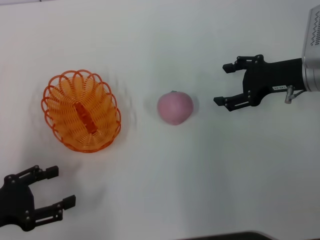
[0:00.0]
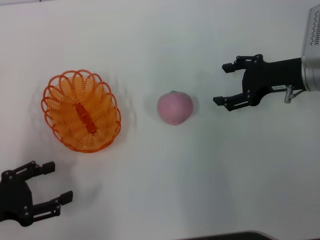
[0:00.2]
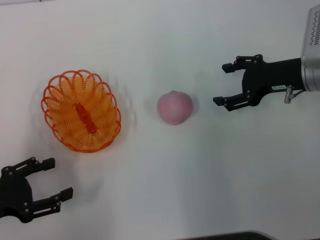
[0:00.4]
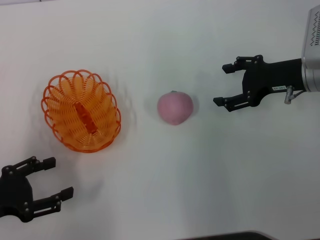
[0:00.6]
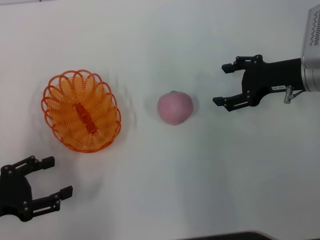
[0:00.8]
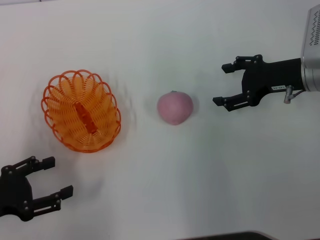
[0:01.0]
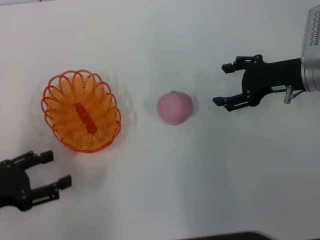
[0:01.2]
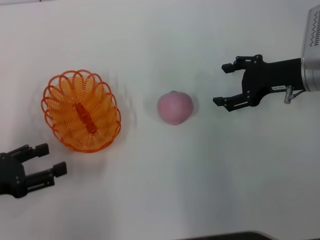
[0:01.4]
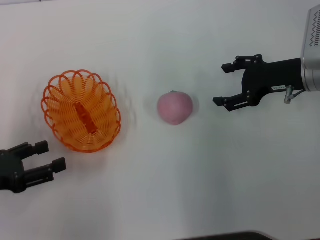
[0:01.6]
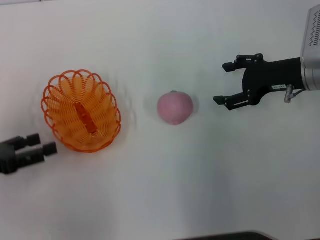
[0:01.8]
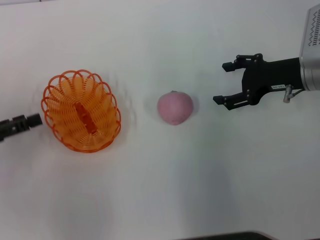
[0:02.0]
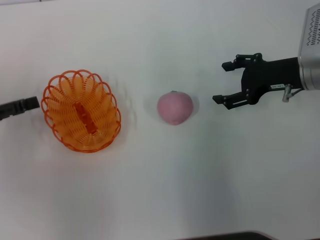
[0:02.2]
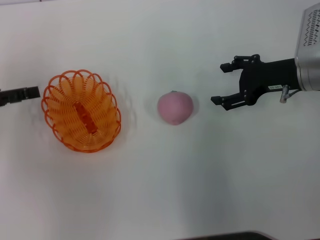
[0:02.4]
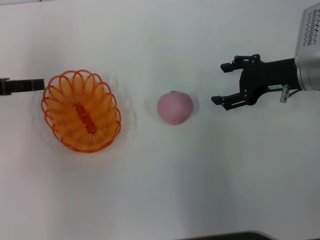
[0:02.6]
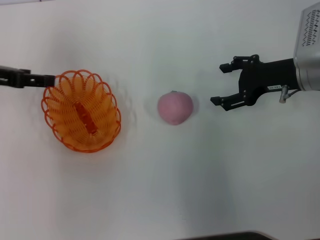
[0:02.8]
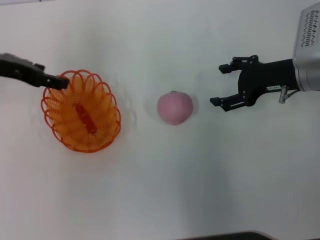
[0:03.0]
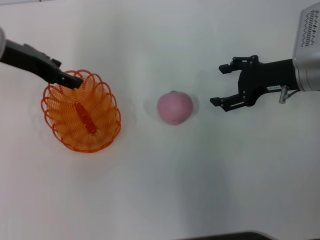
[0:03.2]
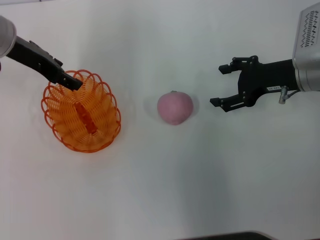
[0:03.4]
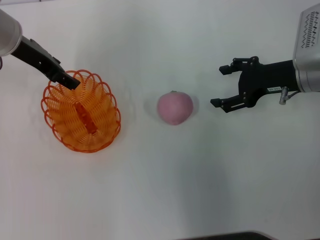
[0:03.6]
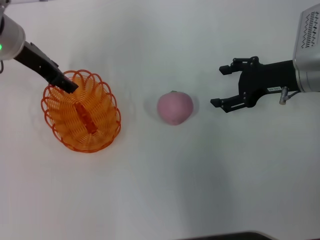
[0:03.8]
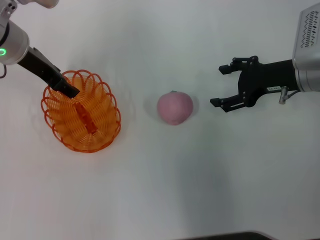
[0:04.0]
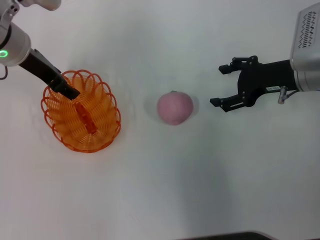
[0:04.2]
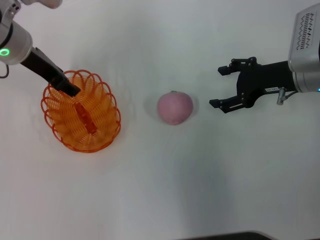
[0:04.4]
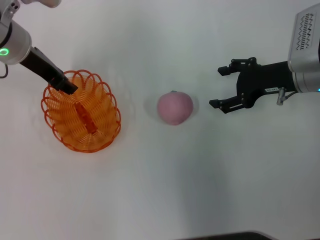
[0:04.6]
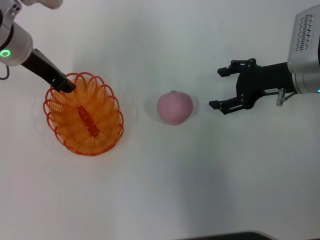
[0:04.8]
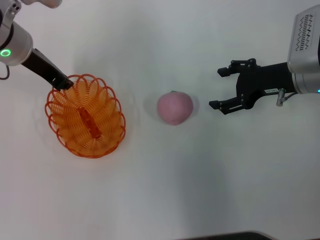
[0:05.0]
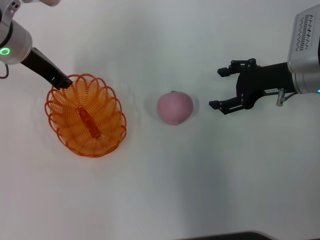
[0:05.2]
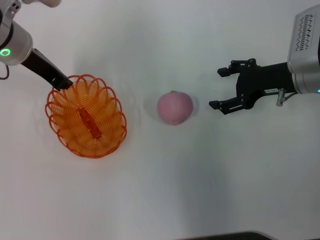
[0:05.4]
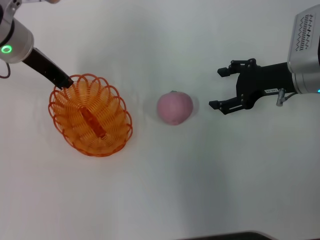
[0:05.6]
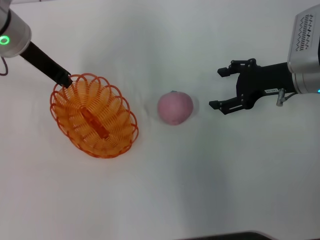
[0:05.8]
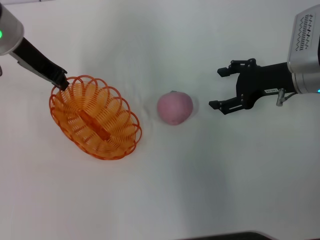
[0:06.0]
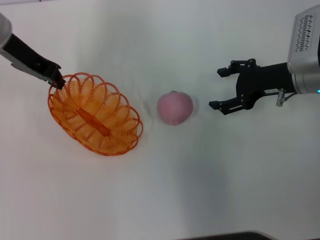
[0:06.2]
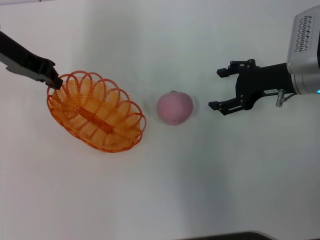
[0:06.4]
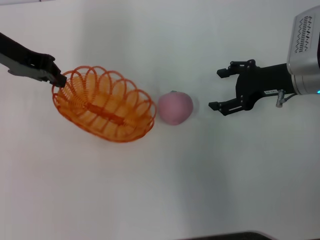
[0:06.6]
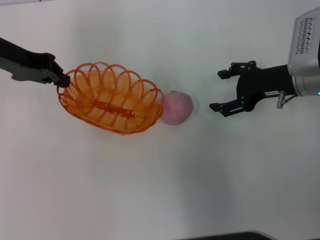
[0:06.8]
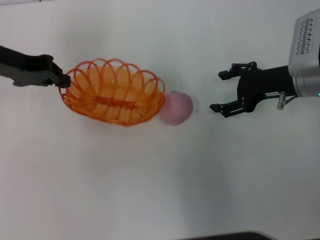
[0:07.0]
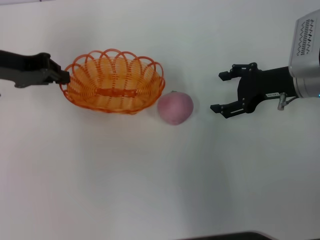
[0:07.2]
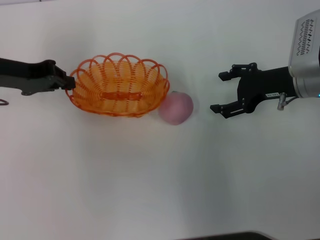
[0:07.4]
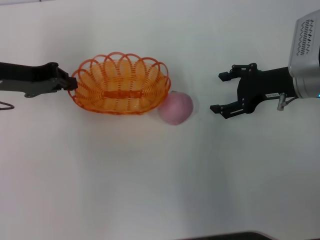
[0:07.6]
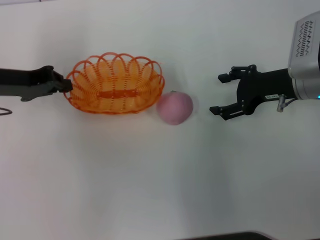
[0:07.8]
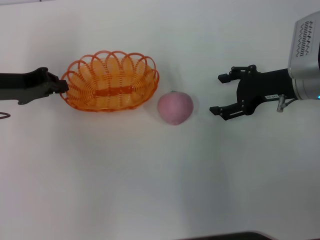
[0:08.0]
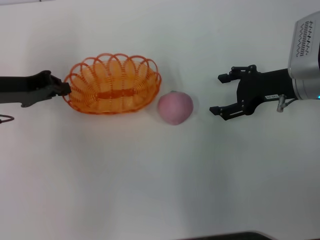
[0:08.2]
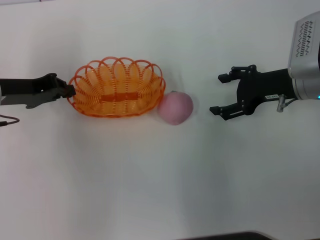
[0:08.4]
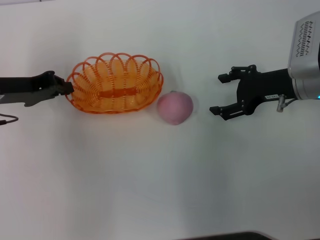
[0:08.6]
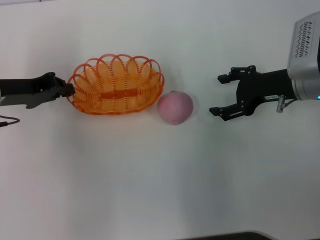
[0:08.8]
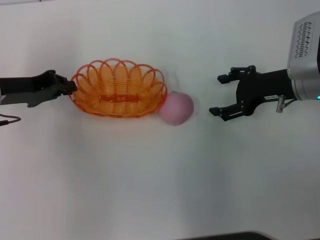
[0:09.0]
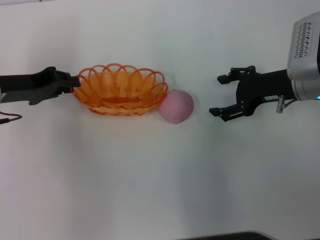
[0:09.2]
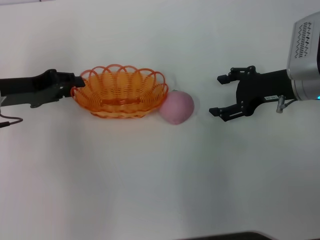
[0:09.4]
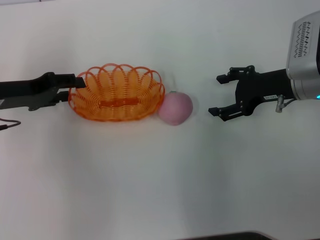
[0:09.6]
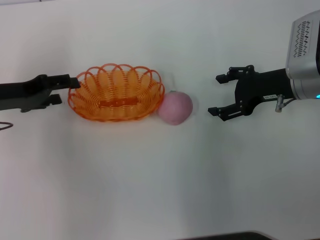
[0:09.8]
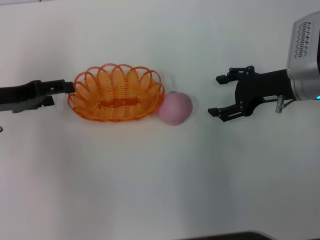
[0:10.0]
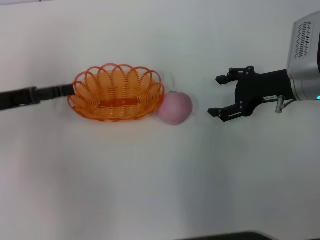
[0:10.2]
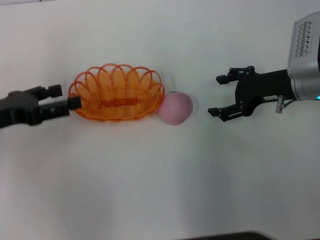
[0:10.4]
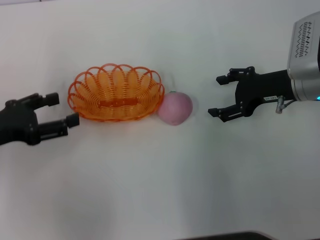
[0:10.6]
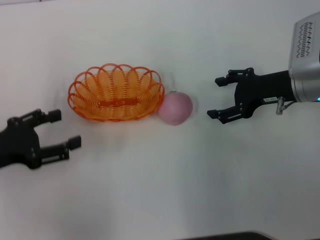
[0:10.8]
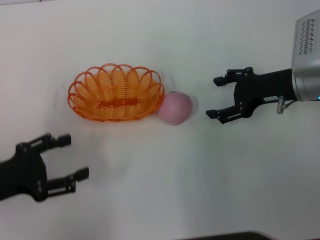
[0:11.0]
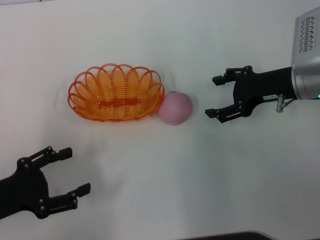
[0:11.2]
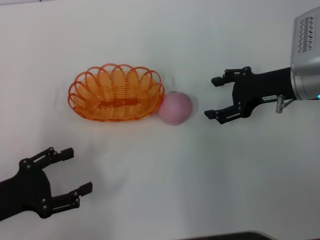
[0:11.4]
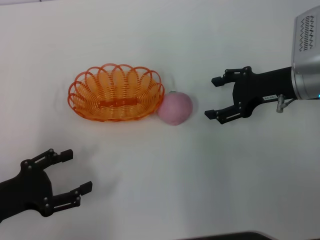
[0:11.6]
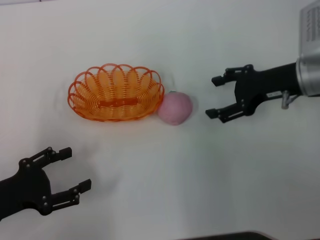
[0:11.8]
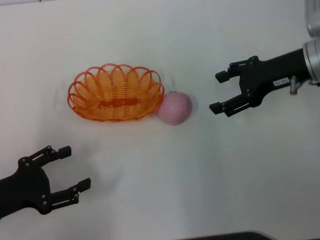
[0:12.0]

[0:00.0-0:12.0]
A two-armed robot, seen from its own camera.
Step, 0.0 to 6.0 s: Pick up the basket with the left gripper.
Step, 6.2 to 10.0 s: Place the basket in the center of view with the left gripper.
0.0 to 1.6 s: There are only small adjustments of the grippers.
1.6 to 3.0 s: The left gripper goes approximately 20 cm forward and upward.
3.0 to 4.4 s: The left gripper heads to the right, covering approximately 5 cm.
4.4 to 6.0 s: The left gripper closes its fingers.
6.0 to 7.6 s: The left gripper is displaced to the left and downward by about 10 cm.
7.6 to 9.0 s: The grippers move only a little.
9.0 to 10.4 s: The left gripper shifts about 5 cm backward, and opens up.
10.4 to 12.0 s: The left gripper goes roughly 10 cm backward and downward. The right gripper is displaced upward by roughly 5 cm.

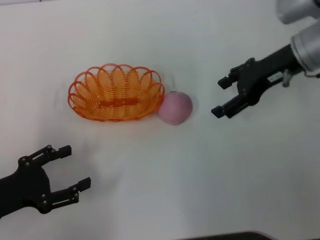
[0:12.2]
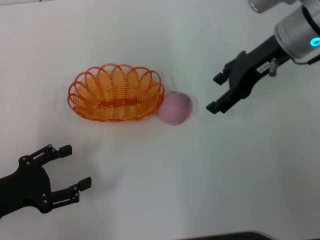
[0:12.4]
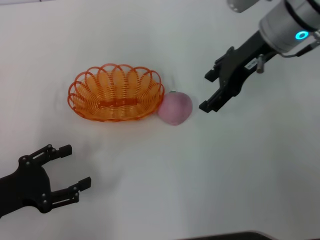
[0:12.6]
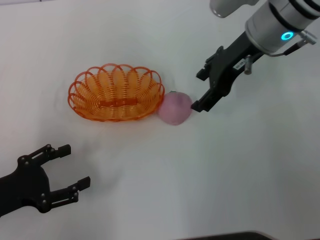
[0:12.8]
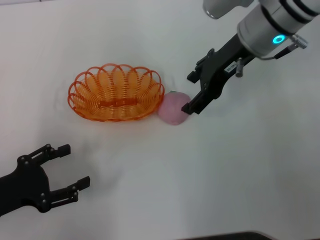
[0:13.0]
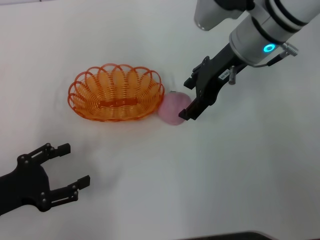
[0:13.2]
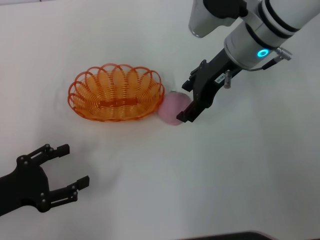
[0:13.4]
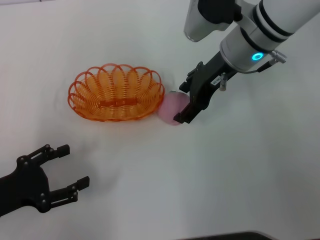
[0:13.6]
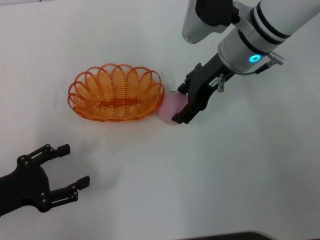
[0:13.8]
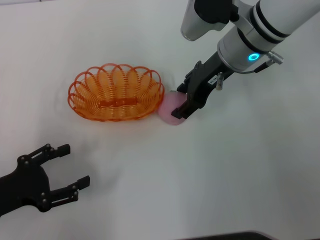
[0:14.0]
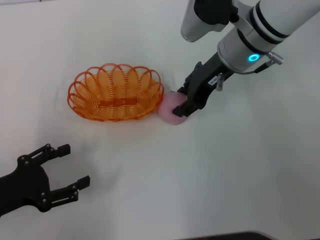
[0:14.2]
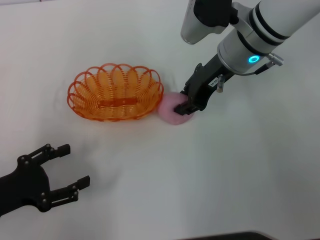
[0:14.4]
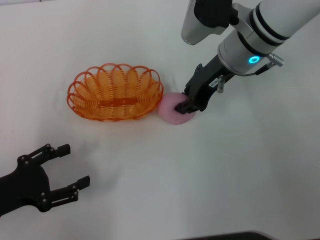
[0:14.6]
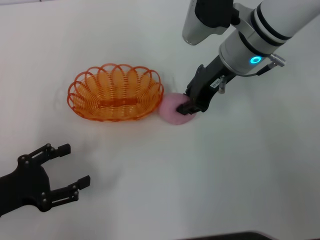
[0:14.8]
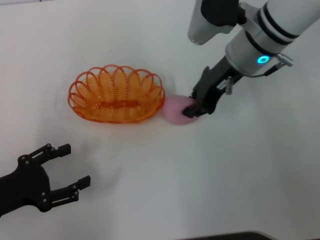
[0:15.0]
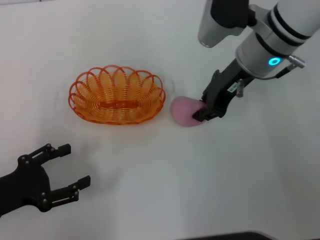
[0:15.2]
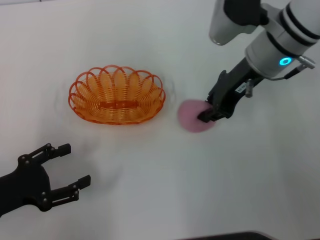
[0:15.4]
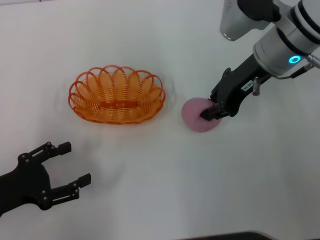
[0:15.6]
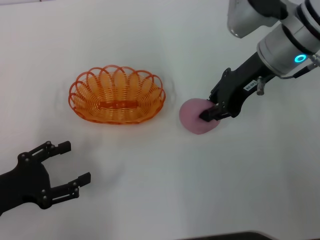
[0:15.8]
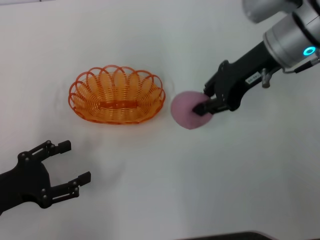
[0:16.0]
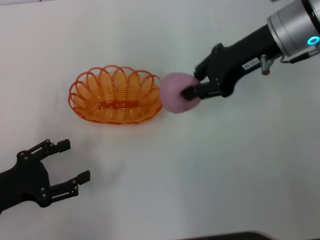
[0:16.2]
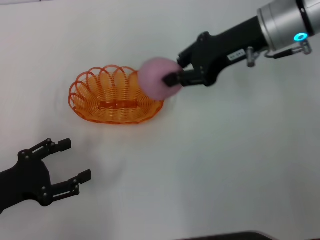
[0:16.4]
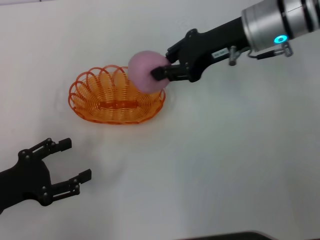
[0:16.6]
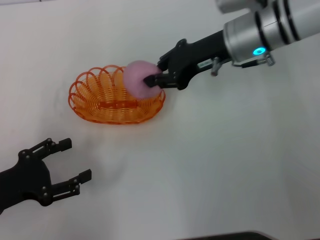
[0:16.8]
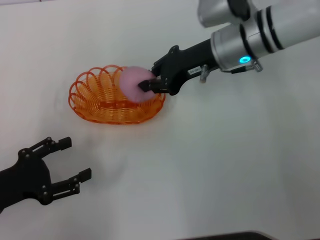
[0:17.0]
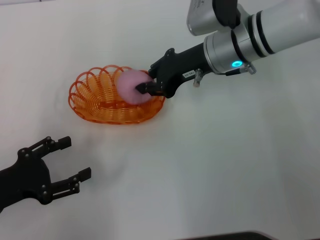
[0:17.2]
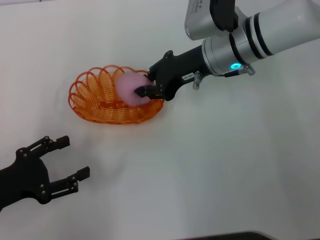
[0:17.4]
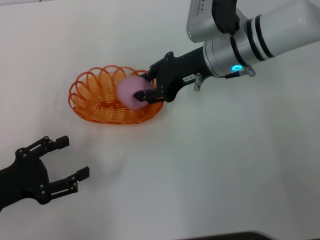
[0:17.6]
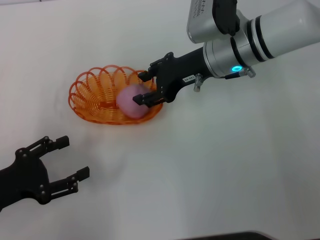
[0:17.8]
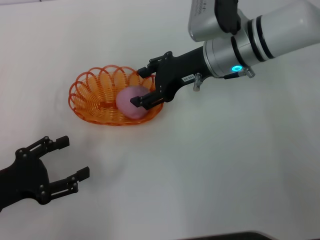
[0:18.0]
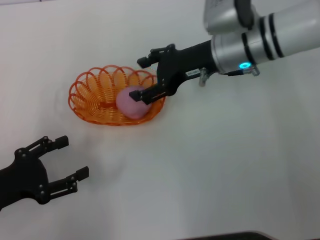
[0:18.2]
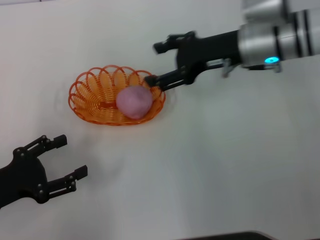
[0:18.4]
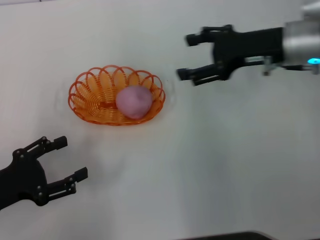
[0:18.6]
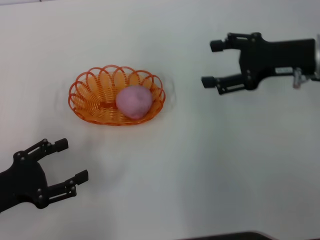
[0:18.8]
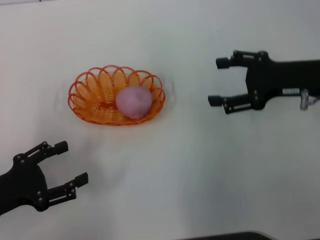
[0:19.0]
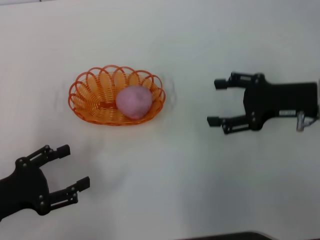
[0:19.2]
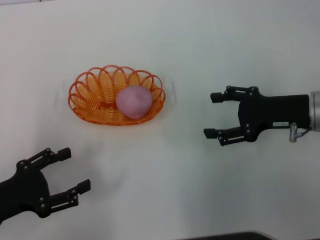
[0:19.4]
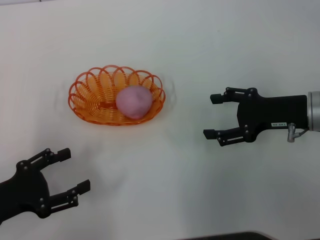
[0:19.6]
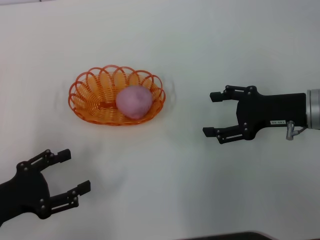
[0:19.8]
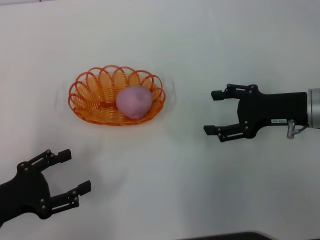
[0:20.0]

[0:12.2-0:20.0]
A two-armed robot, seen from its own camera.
Step, 12.2 to 15.8 s: Pick up the peach with the right gripper.
Step, 16.2 to 18.2 s: Place the peach into the basket with the right gripper.
12.2 to 13.8 s: The right gripper goes some 10 cm to the left.
13.8 to 15.4 s: The right gripper closes up.
16.8 to 18.4 s: The right gripper opens its fingers.
18.4 to 20.0 s: The right gripper travels to the right, backward and downward by about 15 cm.

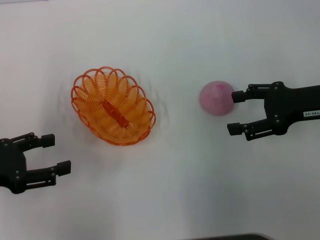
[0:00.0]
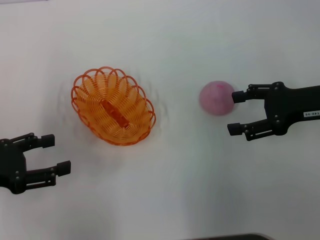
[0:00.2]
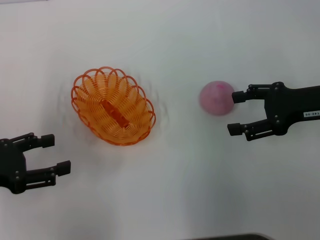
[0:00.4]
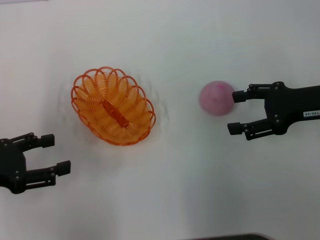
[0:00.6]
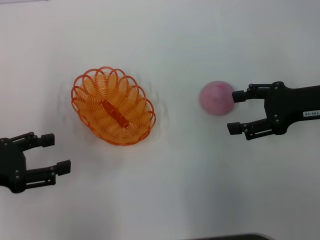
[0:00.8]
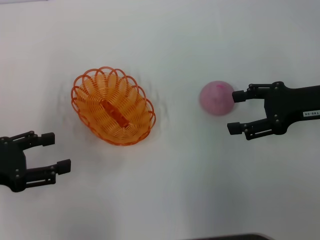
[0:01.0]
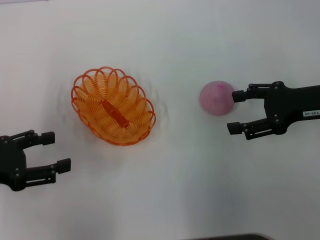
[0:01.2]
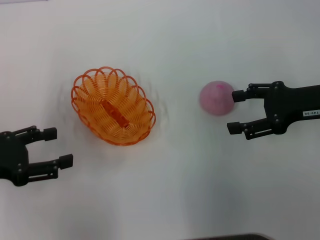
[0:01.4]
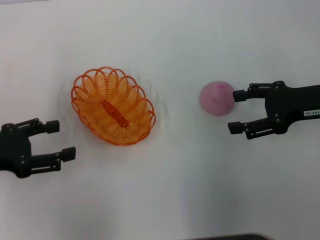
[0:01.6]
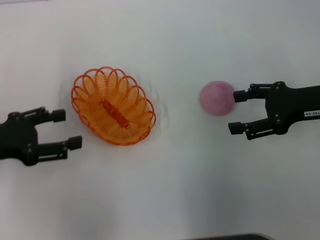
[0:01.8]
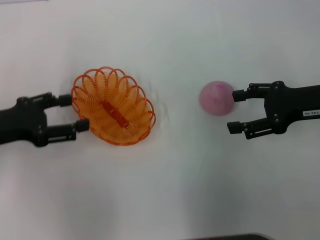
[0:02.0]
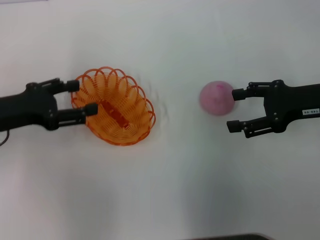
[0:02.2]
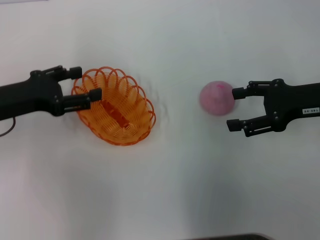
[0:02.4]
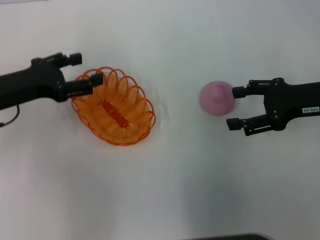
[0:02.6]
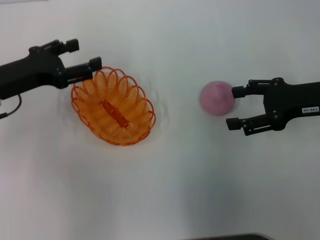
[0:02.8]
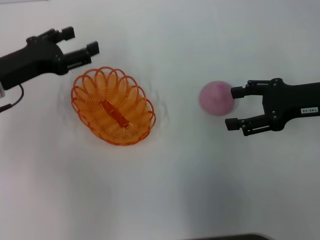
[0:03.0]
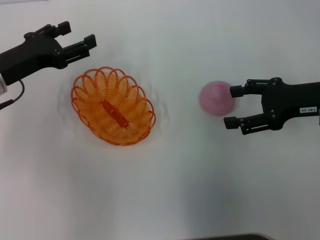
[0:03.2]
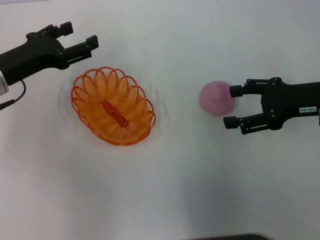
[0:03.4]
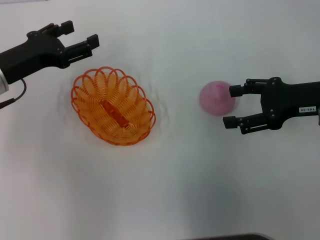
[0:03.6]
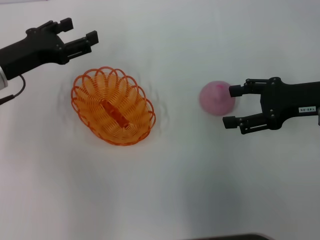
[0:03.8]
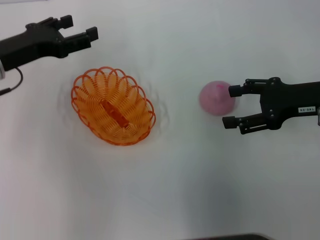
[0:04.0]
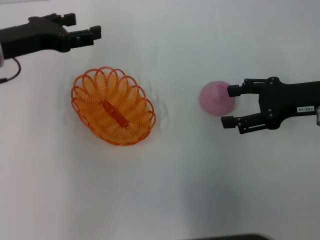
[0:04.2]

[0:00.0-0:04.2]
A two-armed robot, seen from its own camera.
0.0 to 1.4 s: Both grippers stay put.
1.4 to 2.8 s: The left gripper shifts approximately 10 cm forward and to the right.
2.8 to 4.2 s: The left gripper moves some 5 cm.
